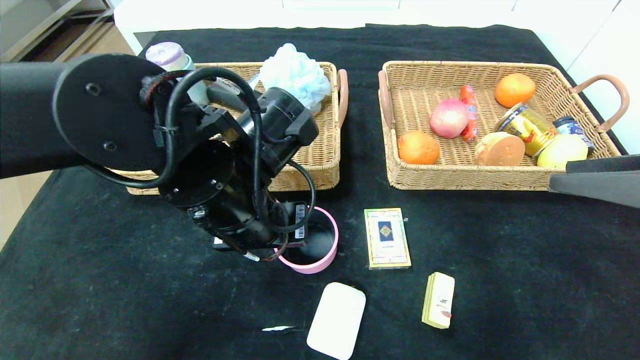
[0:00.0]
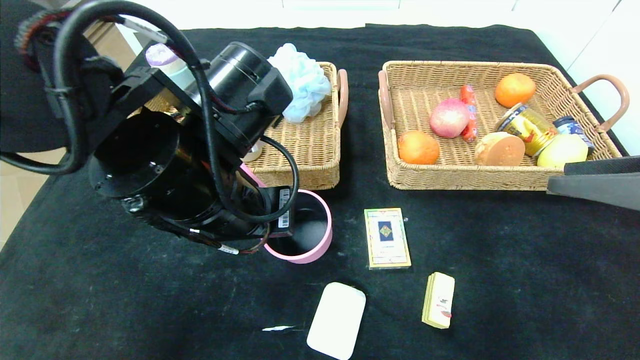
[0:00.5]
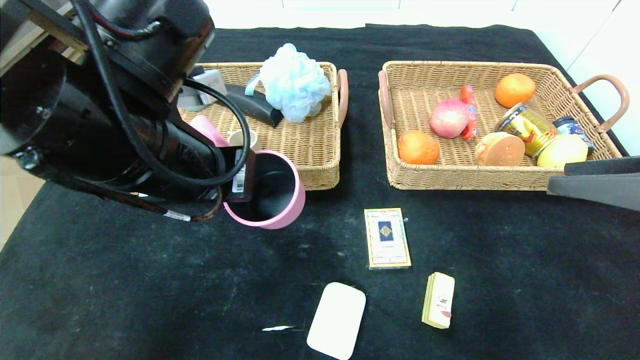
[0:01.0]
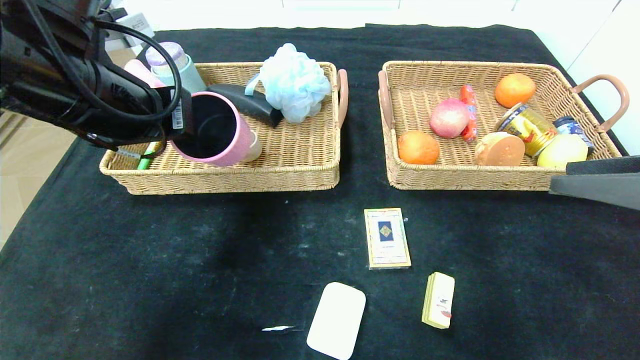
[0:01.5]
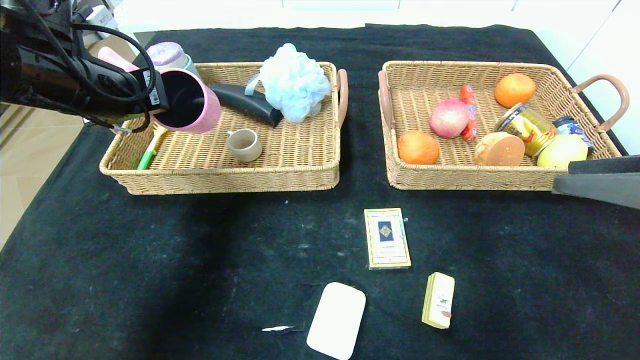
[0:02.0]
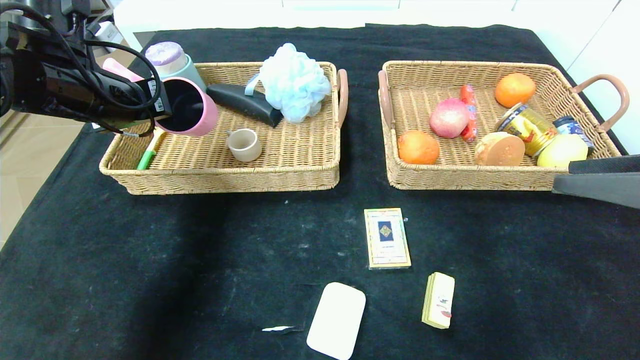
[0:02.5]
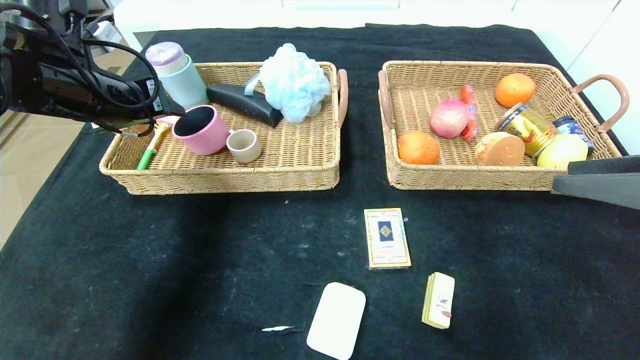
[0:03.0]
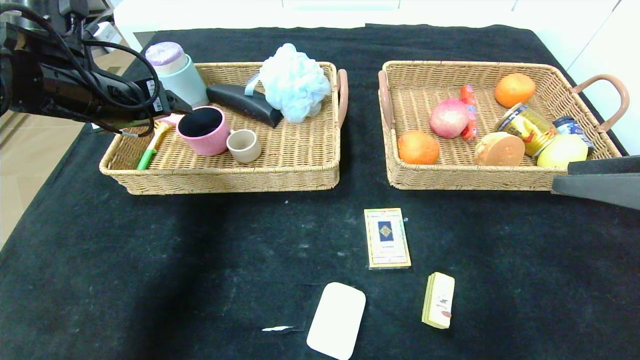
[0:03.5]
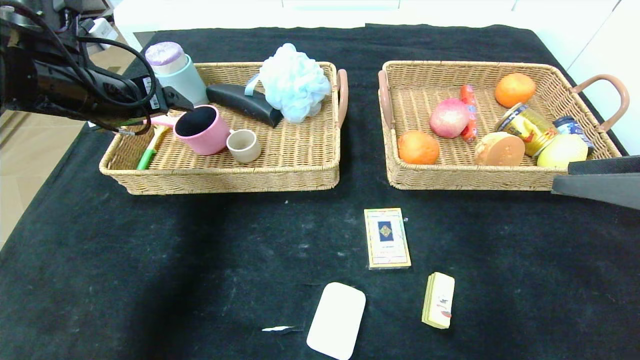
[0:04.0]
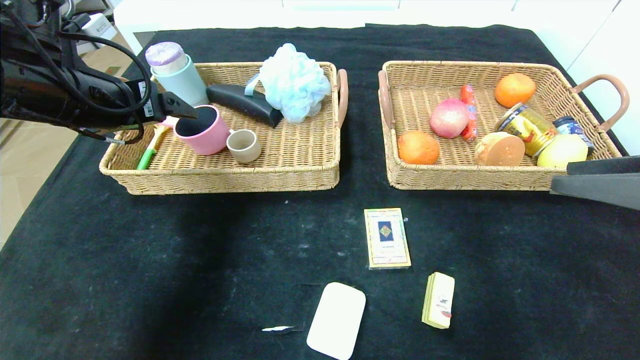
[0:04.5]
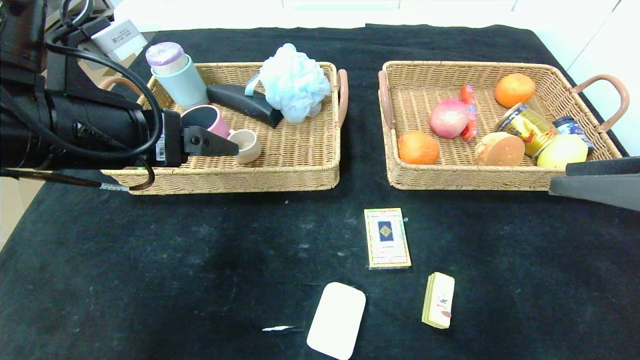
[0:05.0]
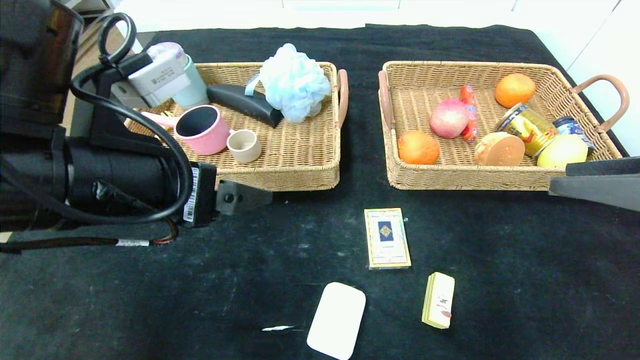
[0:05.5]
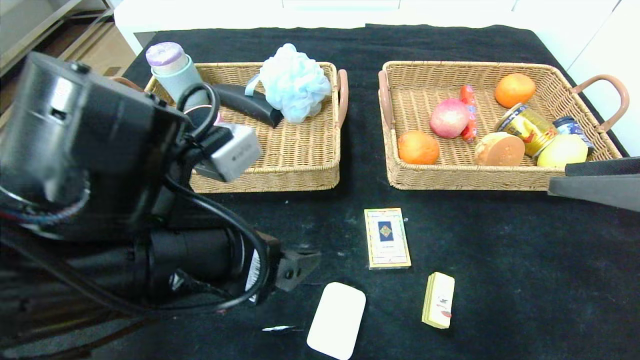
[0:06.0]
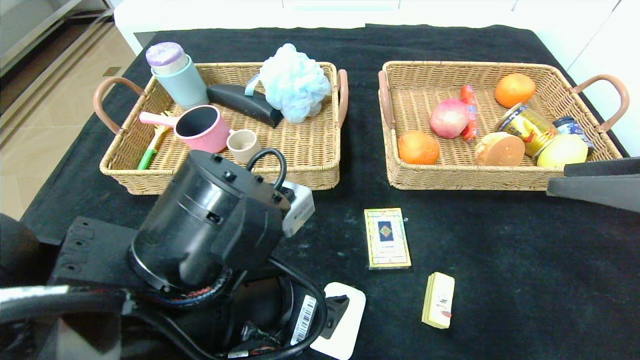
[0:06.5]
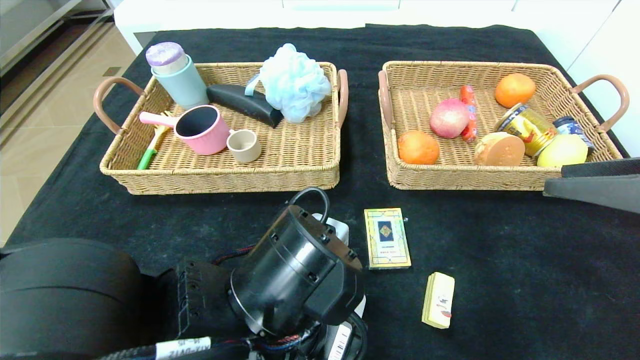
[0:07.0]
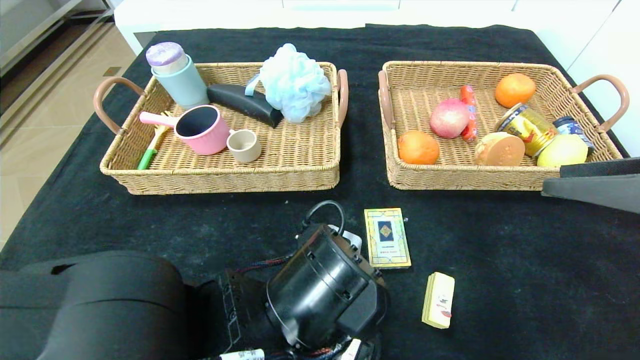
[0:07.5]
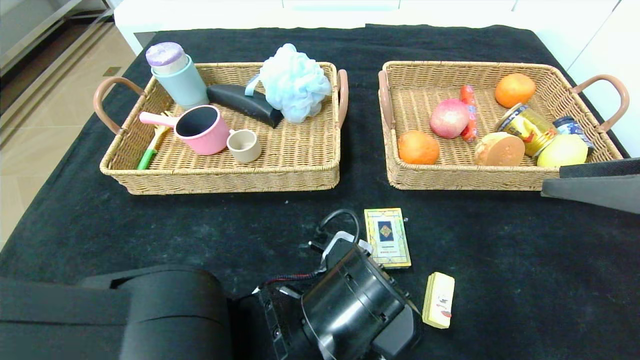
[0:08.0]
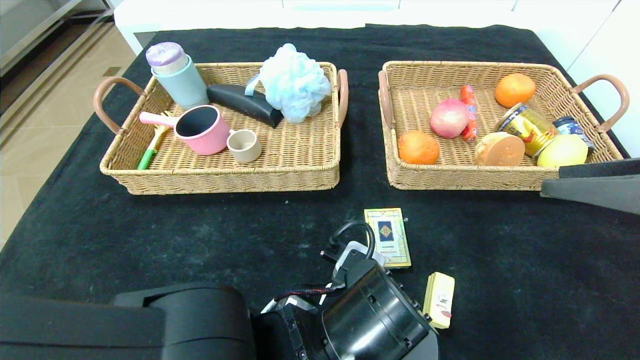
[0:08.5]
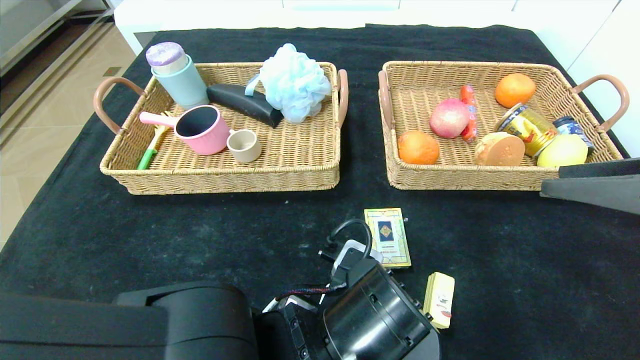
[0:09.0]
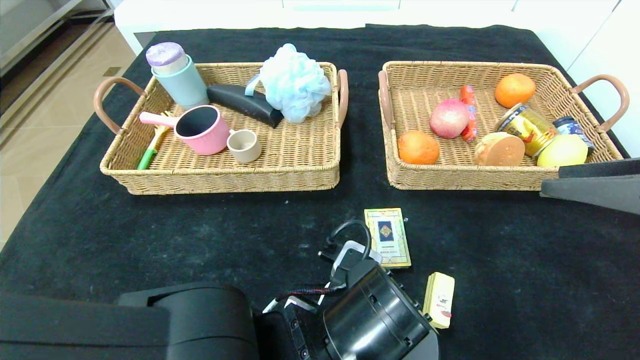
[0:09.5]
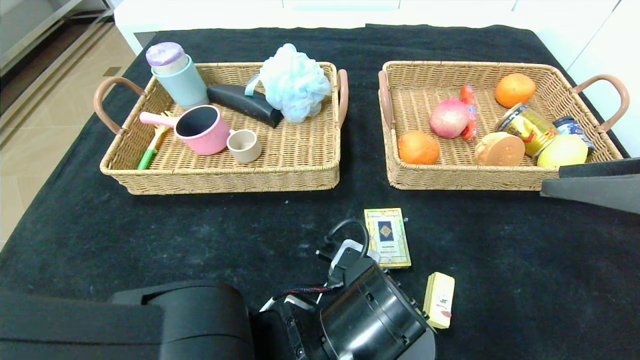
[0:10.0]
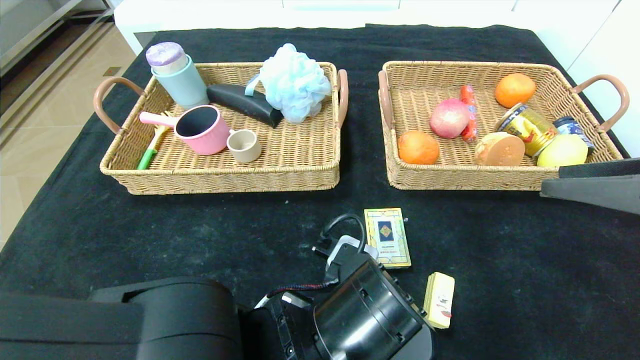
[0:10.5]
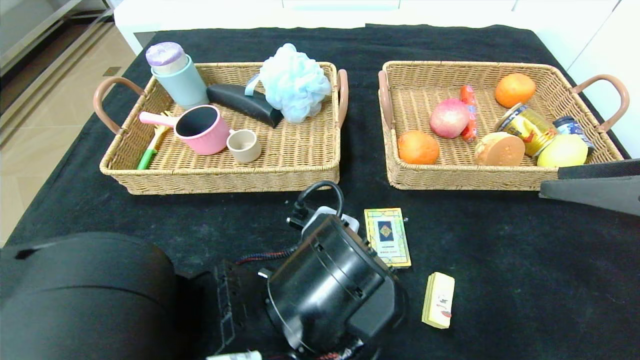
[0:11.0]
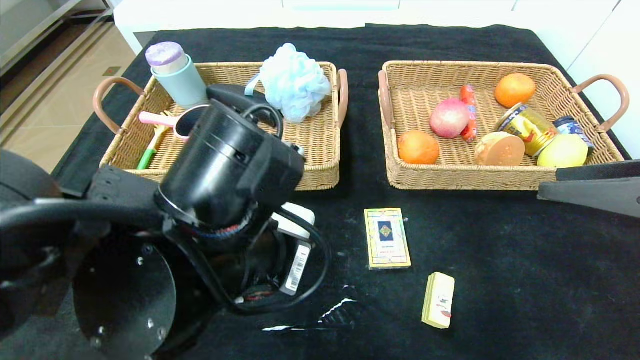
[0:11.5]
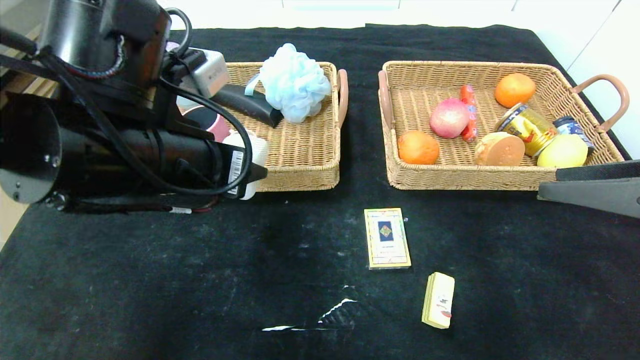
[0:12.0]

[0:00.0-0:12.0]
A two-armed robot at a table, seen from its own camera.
Step, 0:00.0 to 0:05.5: Pick up the pink pot and put it in the left basket.
0:00.0 to 0:02.0: The left gripper heads to the left and upward, covering some 20 cm.
0:02.0 to 0:04.0: The left gripper opens its fingers.
0:04.0 to 0:06.0: The left gripper goes approximately 25 cm backward, to the right and downward.
0:06.0 to 0:08.0: The left gripper heads to the right and downward, covering roughly 15 cm.
0:08.0 to 0:10.0: The left gripper closes.
0:10.0 to 0:12.0: The left gripper shifts about 20 cm upward, to the left and forward.

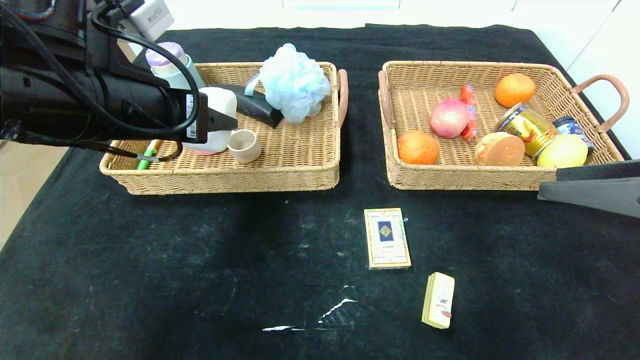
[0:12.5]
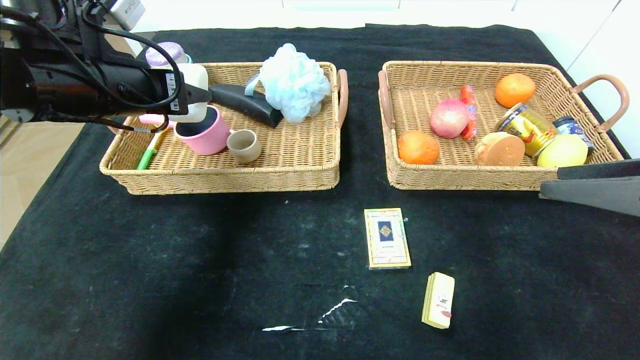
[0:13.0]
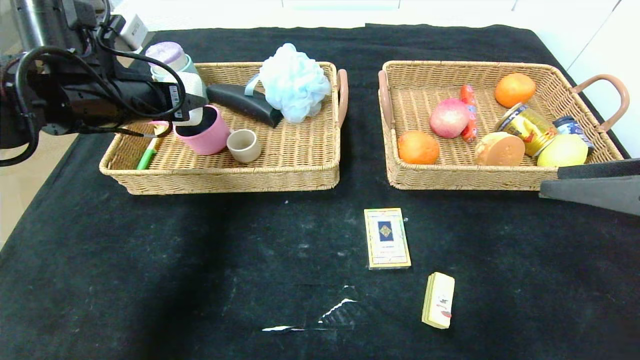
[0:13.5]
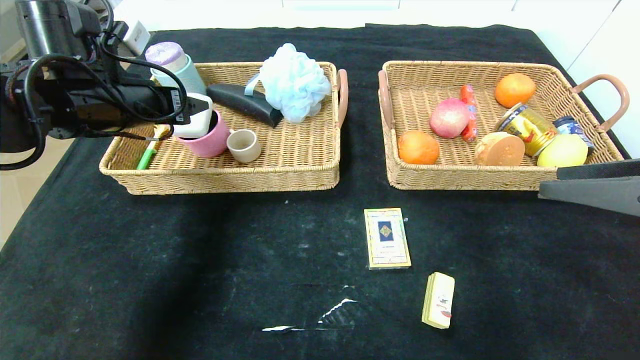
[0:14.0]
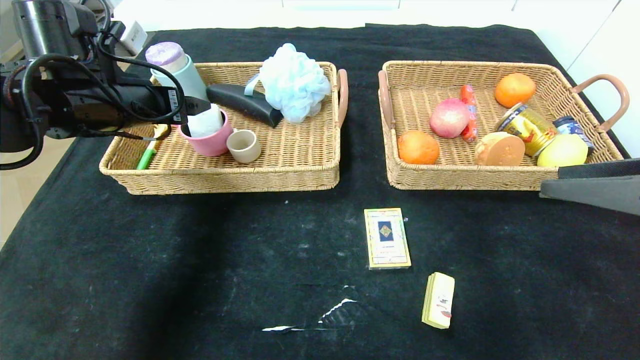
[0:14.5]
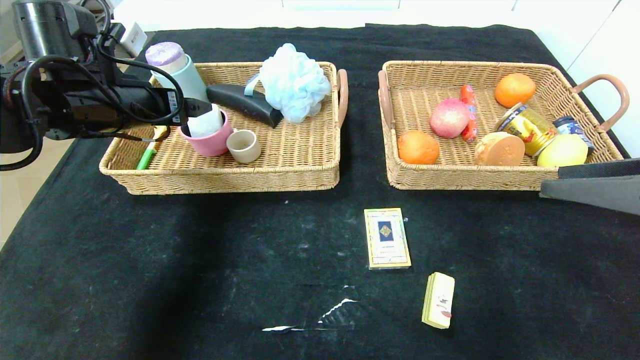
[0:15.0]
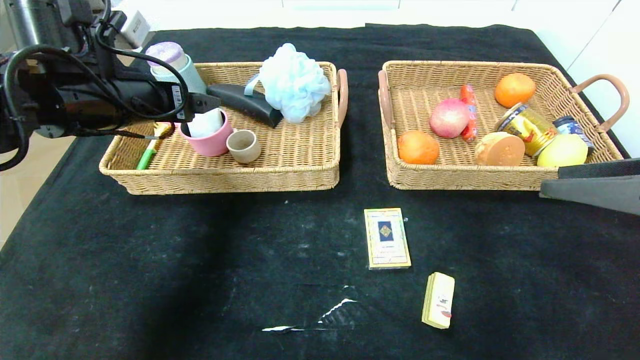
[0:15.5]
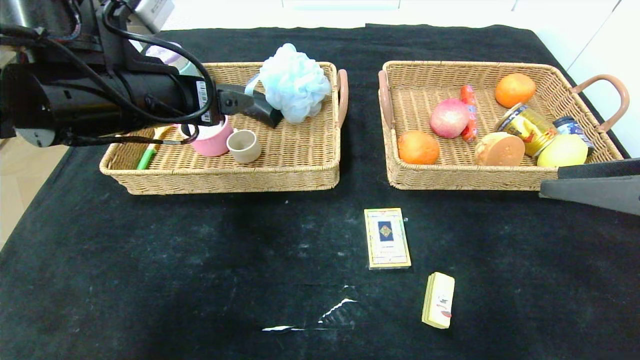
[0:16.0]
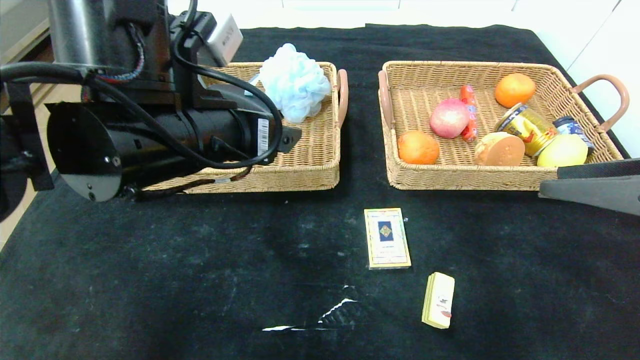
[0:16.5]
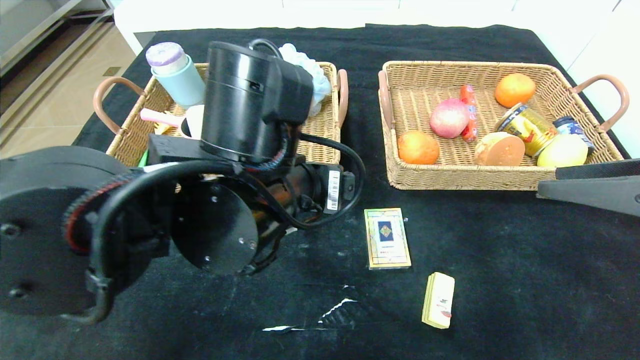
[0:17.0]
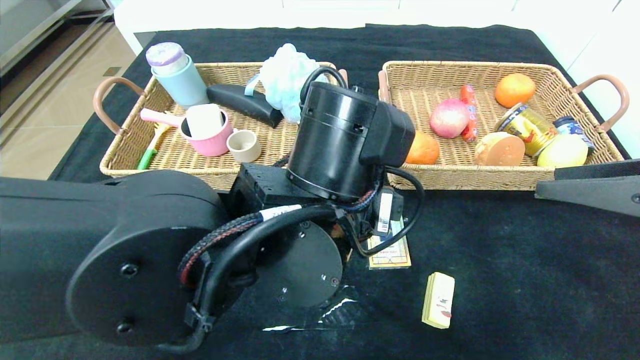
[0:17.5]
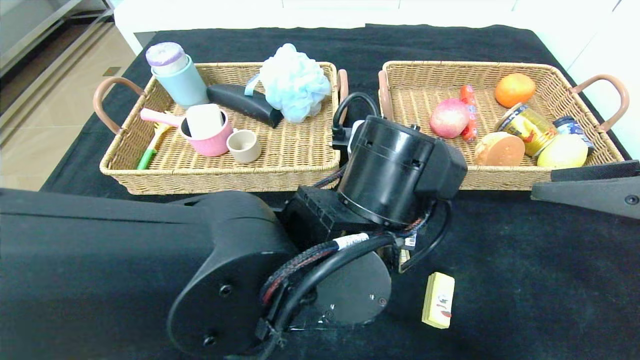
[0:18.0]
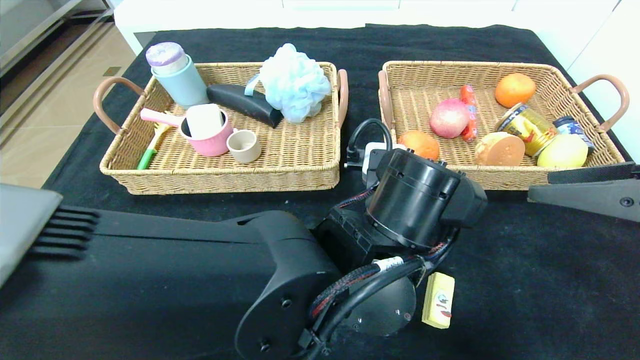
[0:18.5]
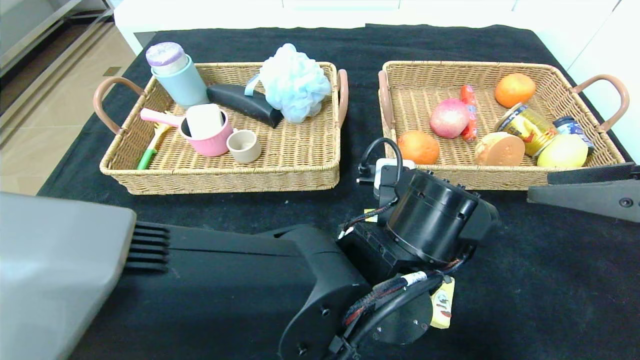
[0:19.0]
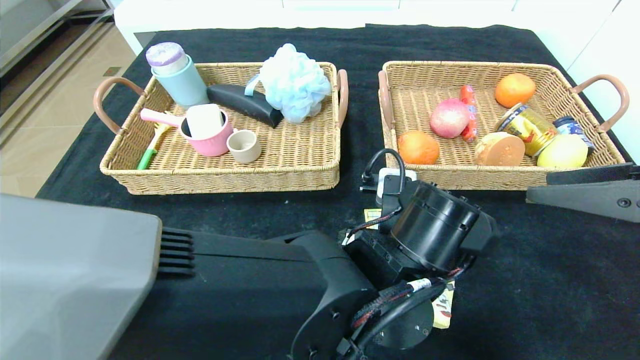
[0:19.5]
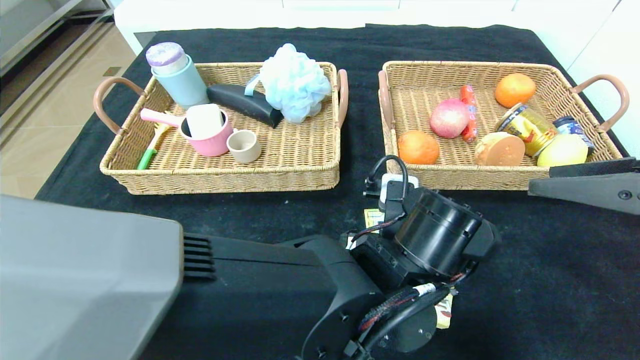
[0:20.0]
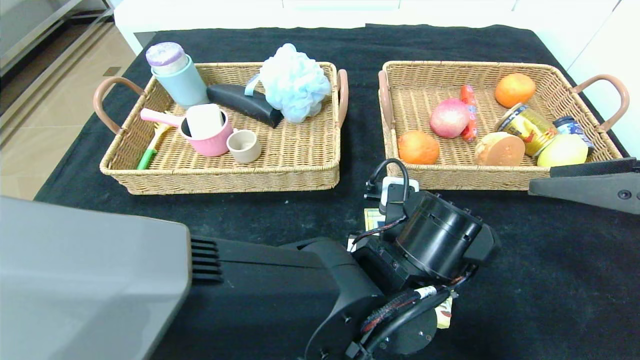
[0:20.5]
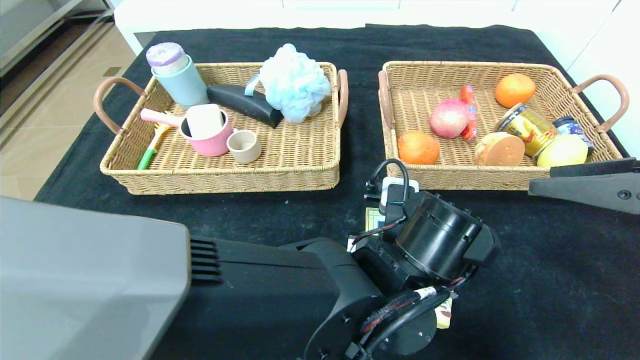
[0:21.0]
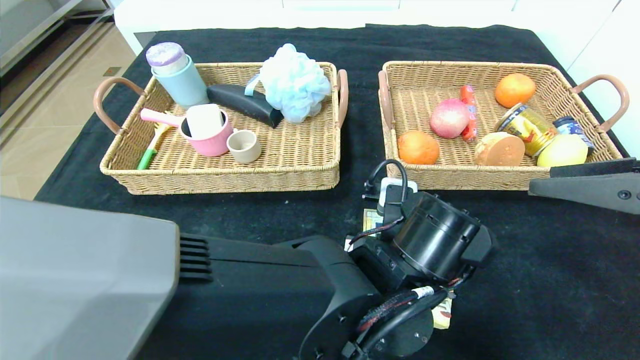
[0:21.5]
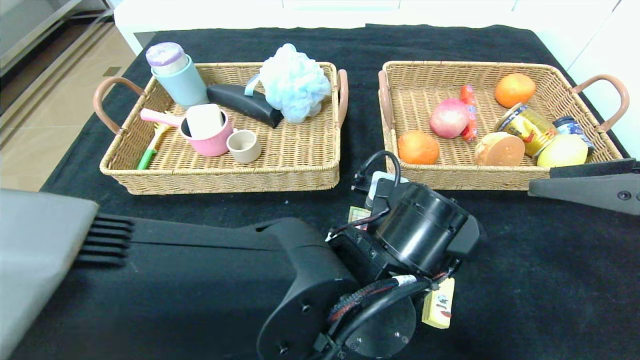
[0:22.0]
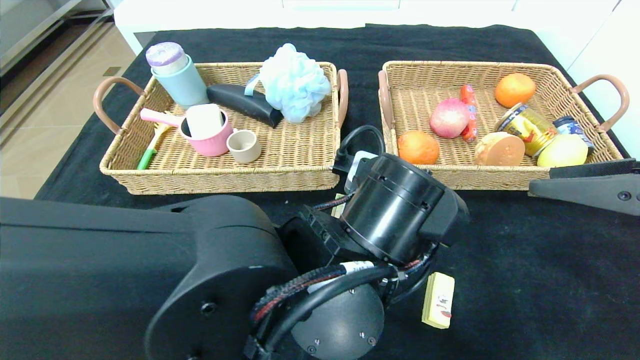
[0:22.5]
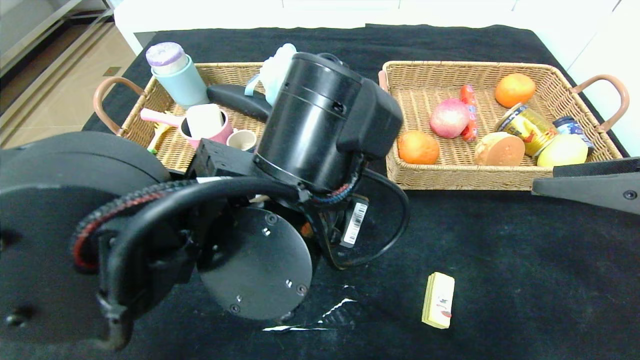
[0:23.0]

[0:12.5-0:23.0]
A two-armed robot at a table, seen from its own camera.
Step, 0:12.5 to 0:17.0: Pick up the soap and put it in the left basket.
0:12.5 to 0:14.5: The left gripper goes approximately 10 cm forward and to the left.
0:14.5 to 0:16.5: The left gripper moves to the right and backward, about 20 cm.
0:16.5 to 0:19.0: The left gripper moves to the right and downward, about 20 cm.
0:19.0 to 0:21.0: The left gripper closes.
0:21.0 to 0:23.0: The left gripper moves upward and to the left, approximately 15 cm.
